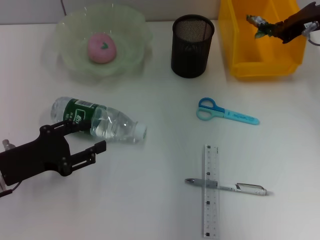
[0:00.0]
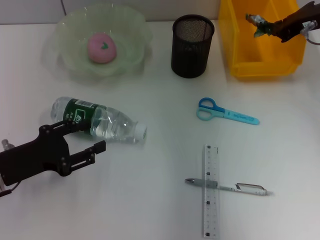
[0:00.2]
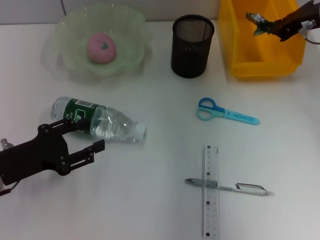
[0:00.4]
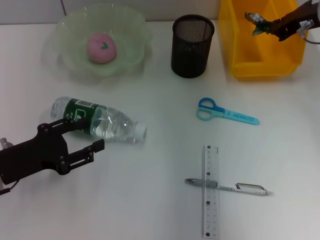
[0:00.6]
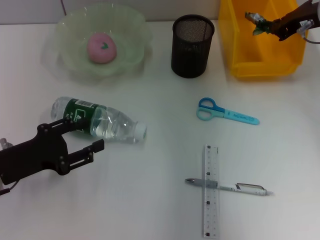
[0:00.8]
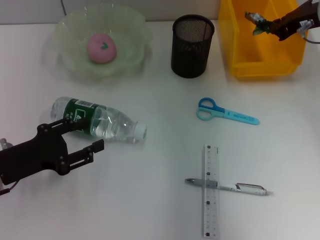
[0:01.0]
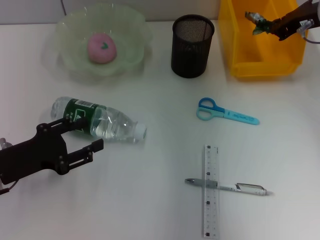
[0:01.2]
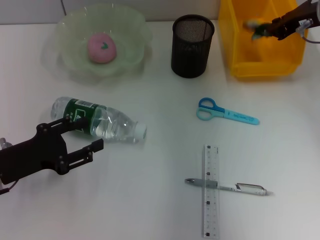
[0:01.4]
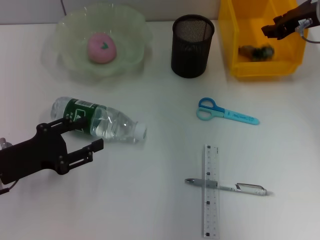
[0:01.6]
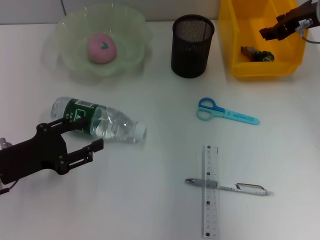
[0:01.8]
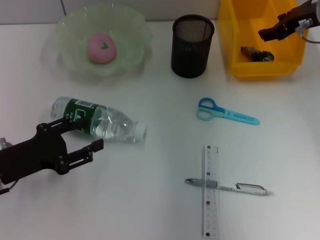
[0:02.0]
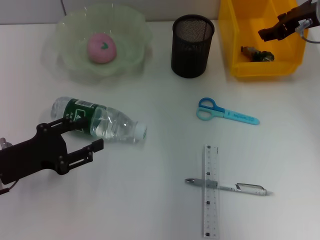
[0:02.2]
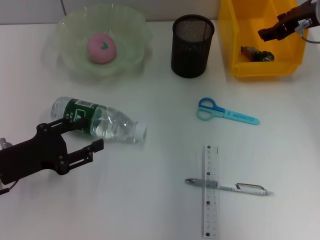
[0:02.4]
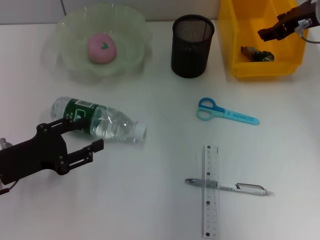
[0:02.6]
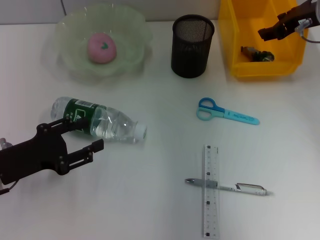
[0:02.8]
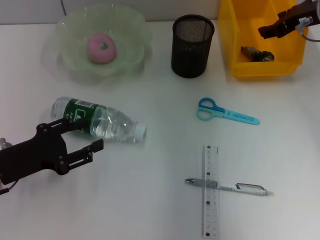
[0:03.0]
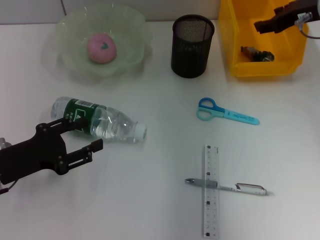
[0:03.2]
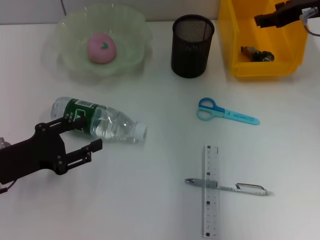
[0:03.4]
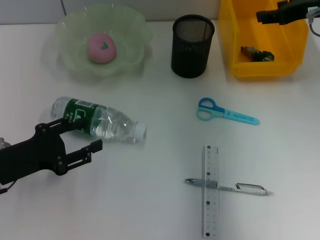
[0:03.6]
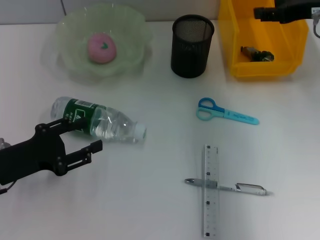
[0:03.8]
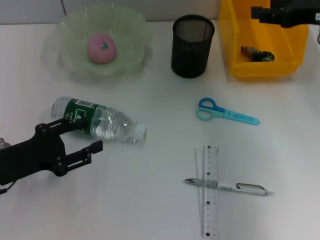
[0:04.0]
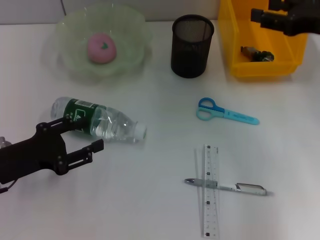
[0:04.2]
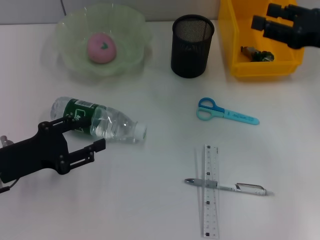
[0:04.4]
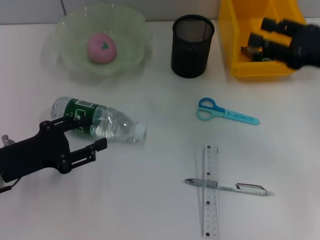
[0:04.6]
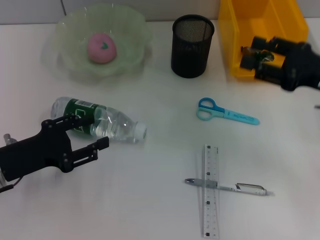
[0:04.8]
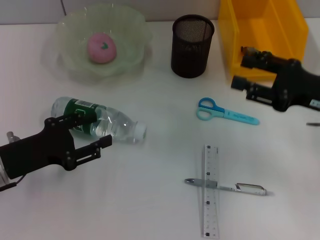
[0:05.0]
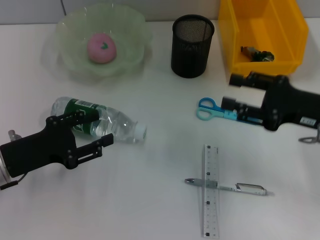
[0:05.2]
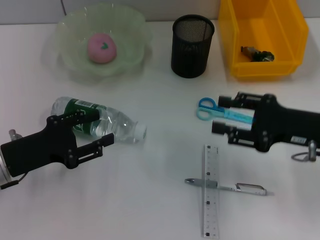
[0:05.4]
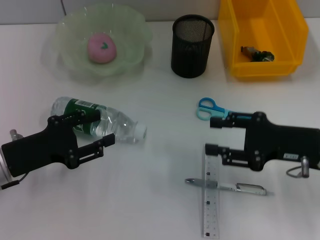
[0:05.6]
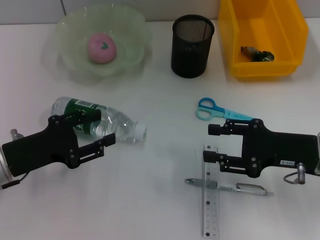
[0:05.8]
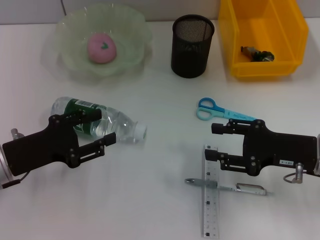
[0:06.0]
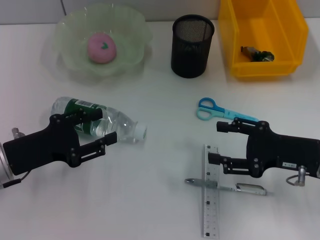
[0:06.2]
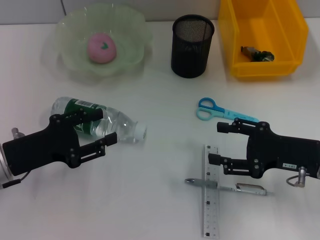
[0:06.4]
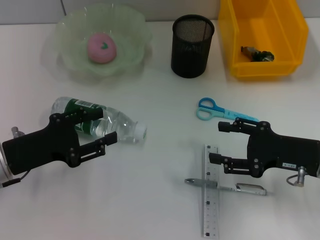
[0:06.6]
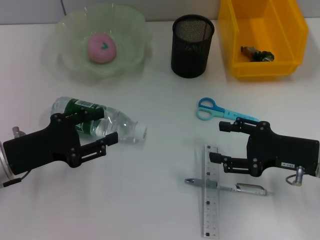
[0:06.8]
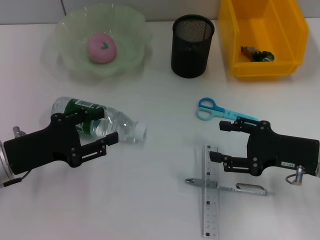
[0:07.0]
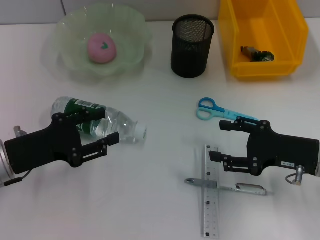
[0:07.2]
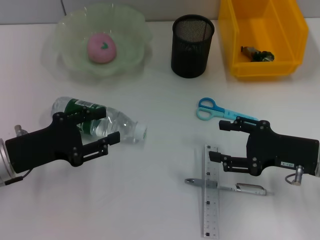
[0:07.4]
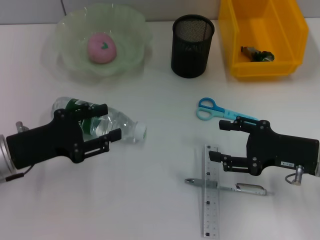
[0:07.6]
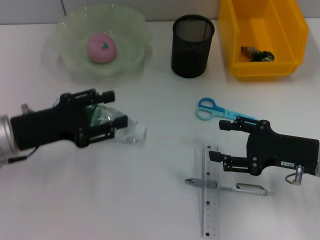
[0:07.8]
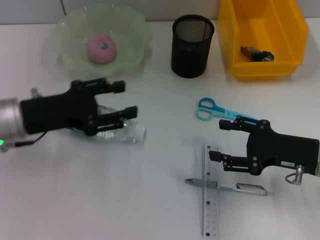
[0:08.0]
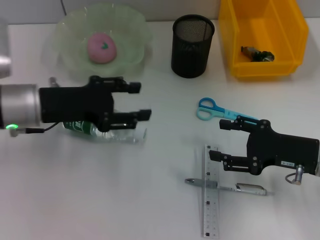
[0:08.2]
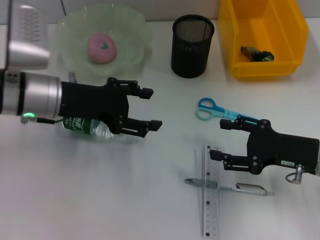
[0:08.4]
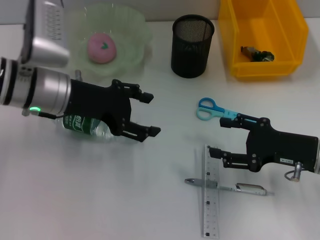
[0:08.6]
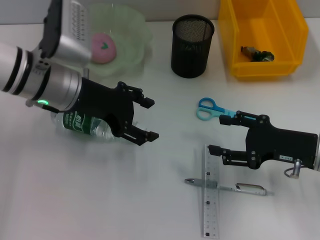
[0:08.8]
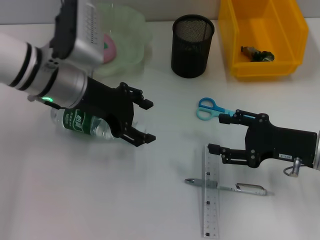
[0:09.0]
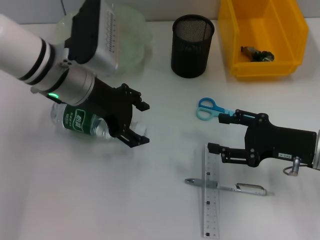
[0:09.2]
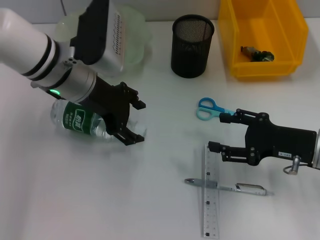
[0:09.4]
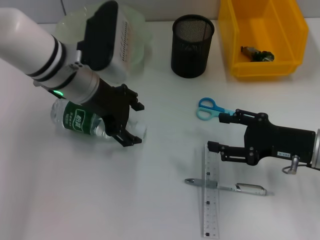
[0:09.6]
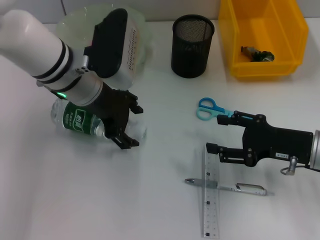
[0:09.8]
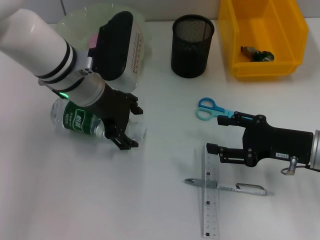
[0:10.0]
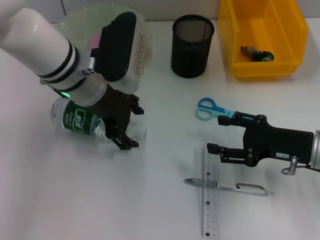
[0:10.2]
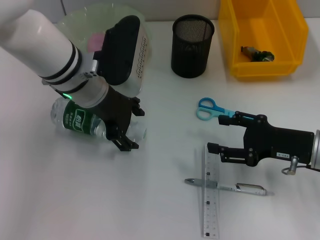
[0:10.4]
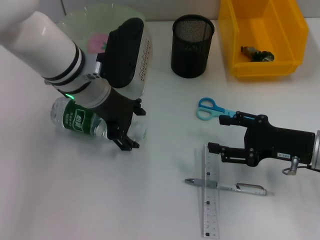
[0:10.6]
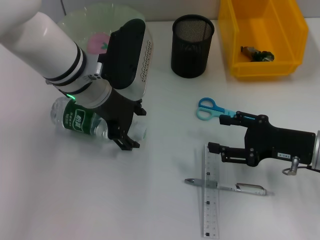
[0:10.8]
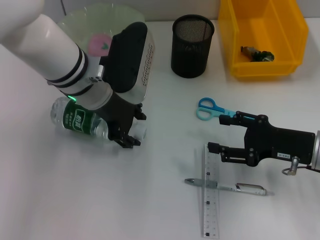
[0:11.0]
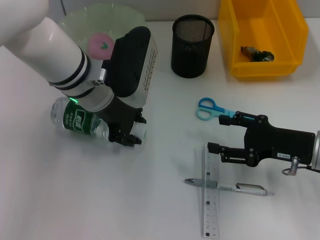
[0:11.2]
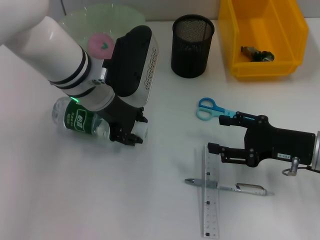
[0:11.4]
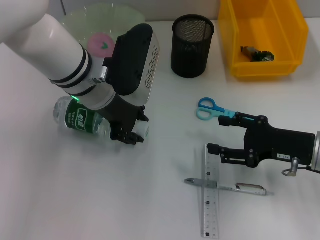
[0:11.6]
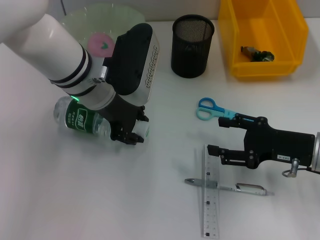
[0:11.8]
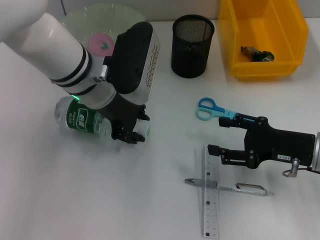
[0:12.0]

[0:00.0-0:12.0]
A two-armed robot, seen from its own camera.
Step, 0:01.8 to 0:11.2: Grab the water bottle with the left hand.
0:00.0 to 0:01.6: The two grippers keep their place.
0:01.6 to 0:03.0: The right gripper opens.
0:03.0 to 0:04.4: The right gripper heads backward, covering some 10 cm.
0:04.4 to 0:06.0: The right gripper goes about 15 cm downward and backward.
0:06.0 to 0:07.6: The grippers make only small movements.
0:07.6 to 0:09.0: The left gripper heads forward, to the right and upward, covering some 15 cm.
0:10.4 to 0:12.0: The left gripper closes.

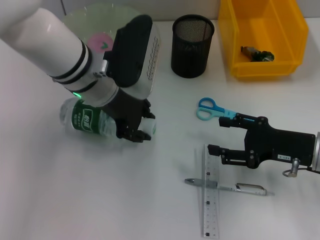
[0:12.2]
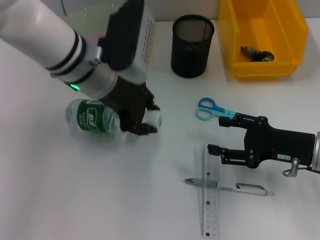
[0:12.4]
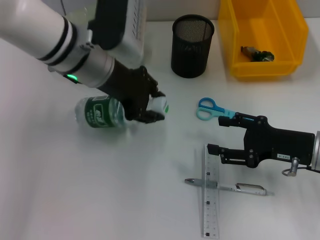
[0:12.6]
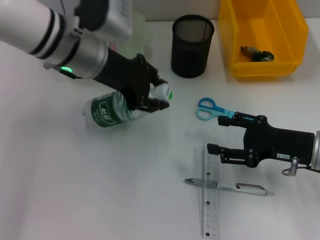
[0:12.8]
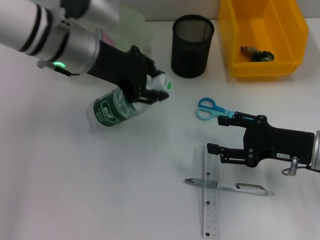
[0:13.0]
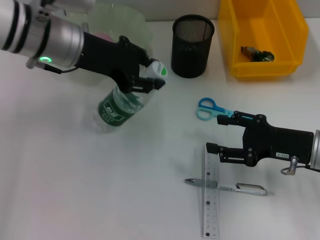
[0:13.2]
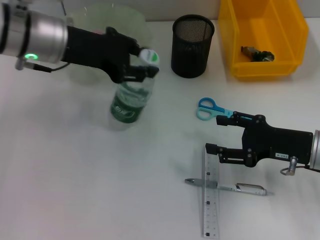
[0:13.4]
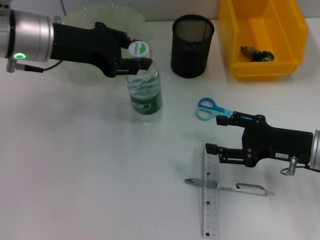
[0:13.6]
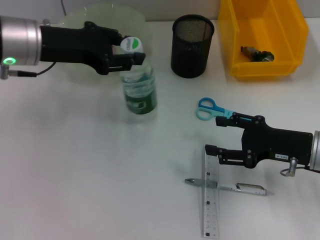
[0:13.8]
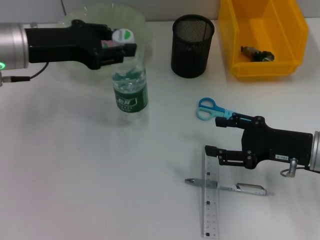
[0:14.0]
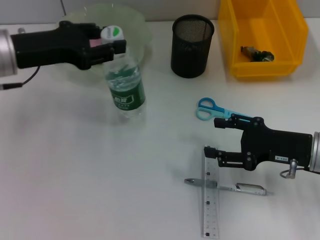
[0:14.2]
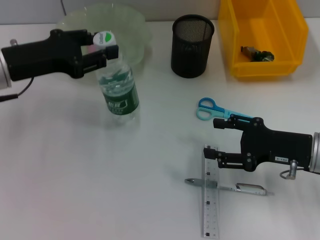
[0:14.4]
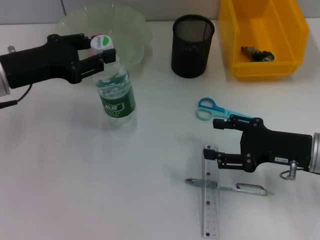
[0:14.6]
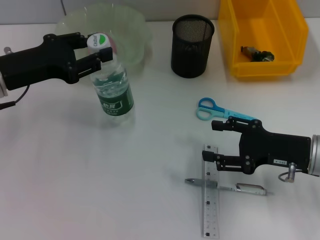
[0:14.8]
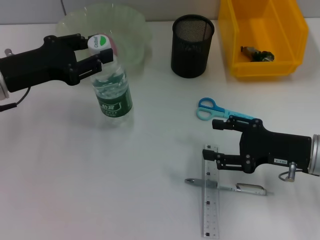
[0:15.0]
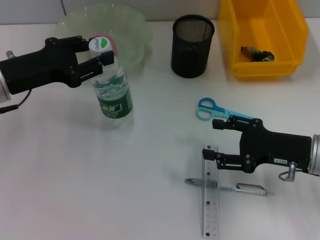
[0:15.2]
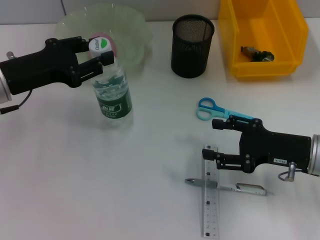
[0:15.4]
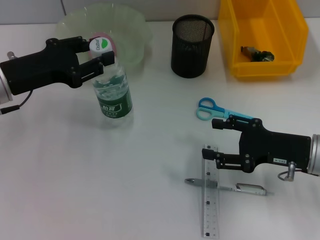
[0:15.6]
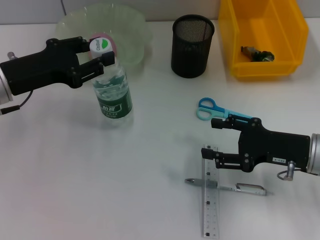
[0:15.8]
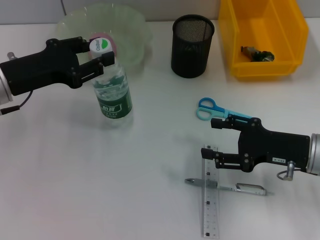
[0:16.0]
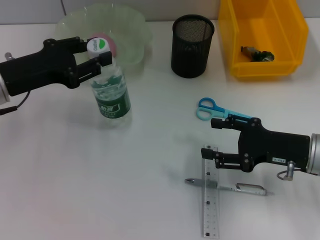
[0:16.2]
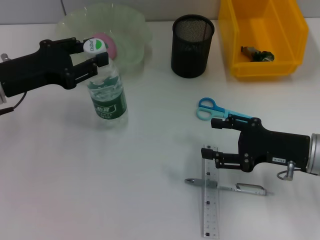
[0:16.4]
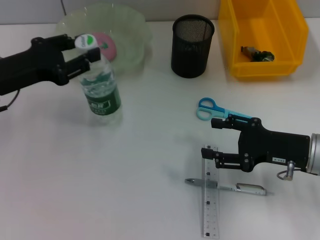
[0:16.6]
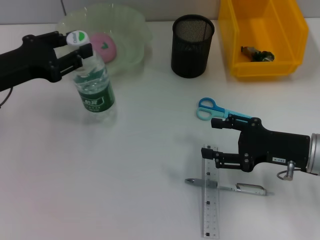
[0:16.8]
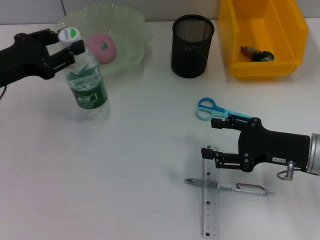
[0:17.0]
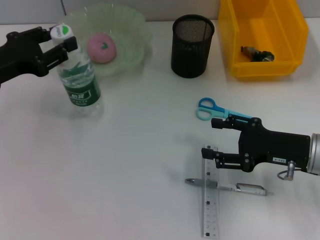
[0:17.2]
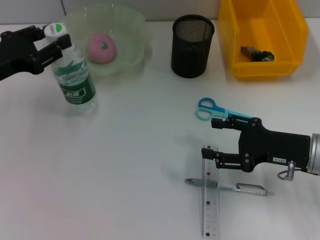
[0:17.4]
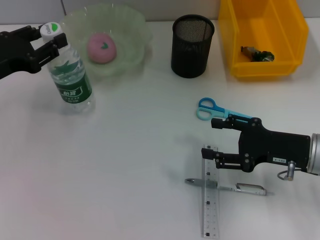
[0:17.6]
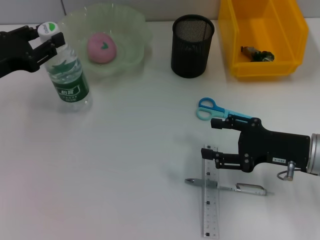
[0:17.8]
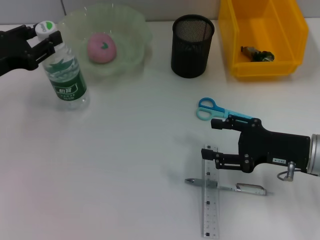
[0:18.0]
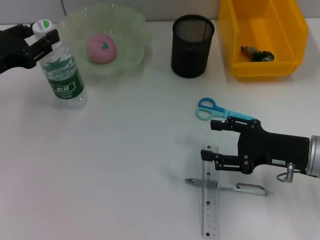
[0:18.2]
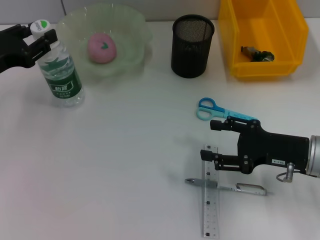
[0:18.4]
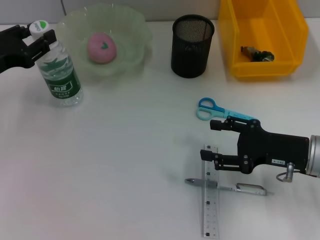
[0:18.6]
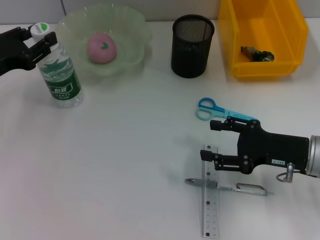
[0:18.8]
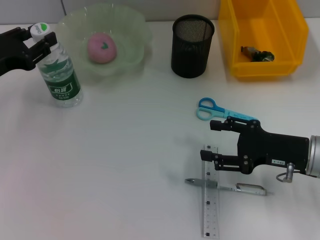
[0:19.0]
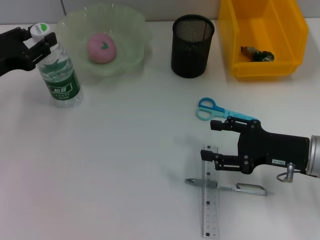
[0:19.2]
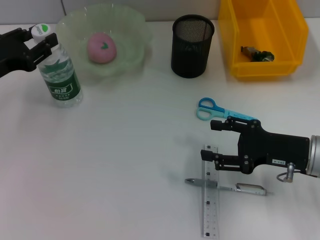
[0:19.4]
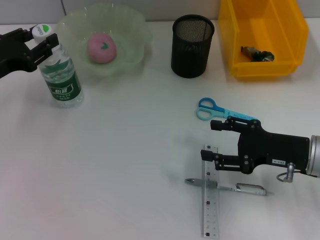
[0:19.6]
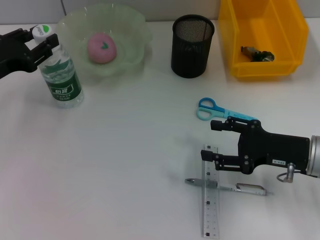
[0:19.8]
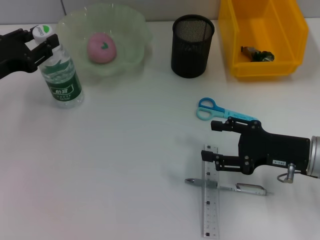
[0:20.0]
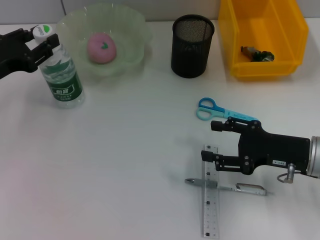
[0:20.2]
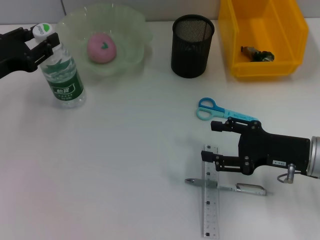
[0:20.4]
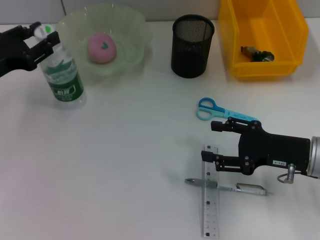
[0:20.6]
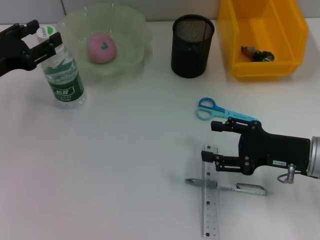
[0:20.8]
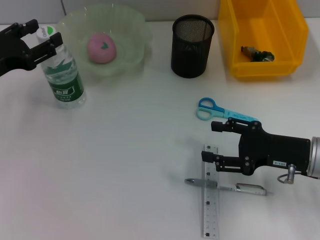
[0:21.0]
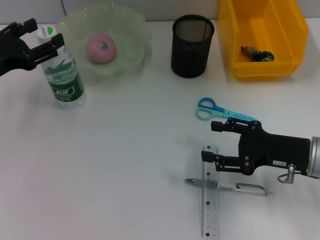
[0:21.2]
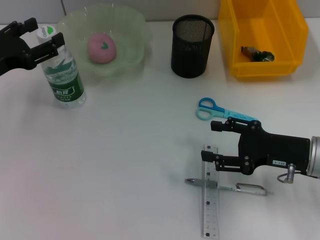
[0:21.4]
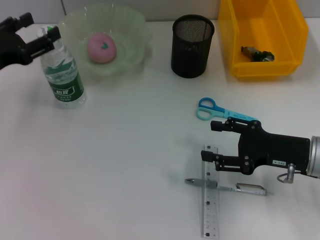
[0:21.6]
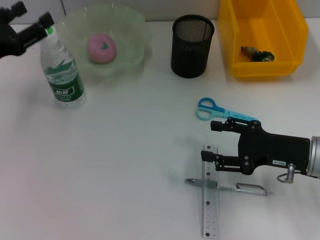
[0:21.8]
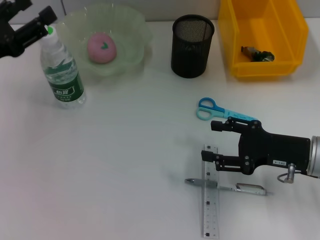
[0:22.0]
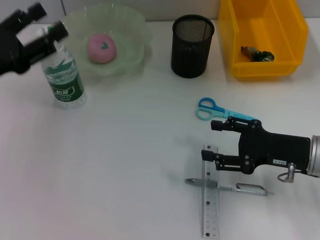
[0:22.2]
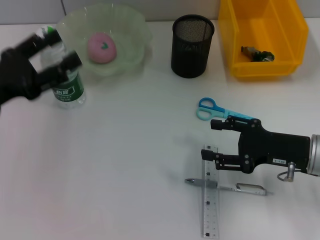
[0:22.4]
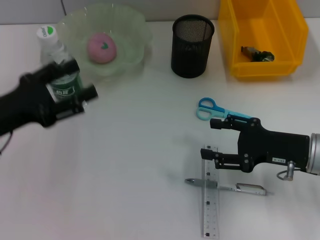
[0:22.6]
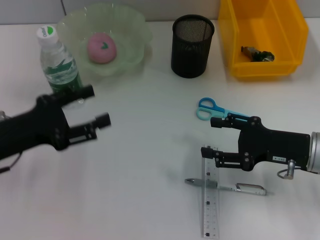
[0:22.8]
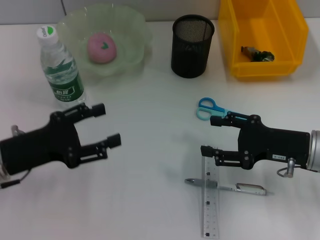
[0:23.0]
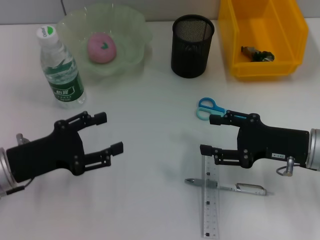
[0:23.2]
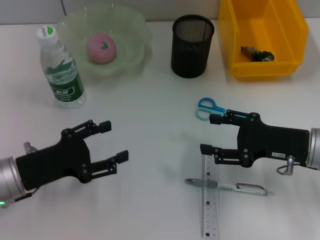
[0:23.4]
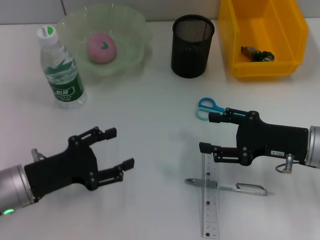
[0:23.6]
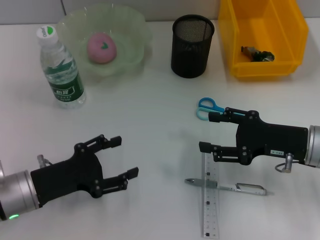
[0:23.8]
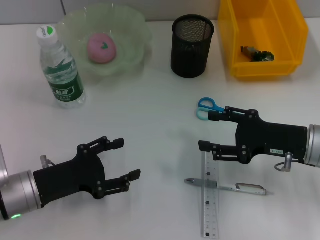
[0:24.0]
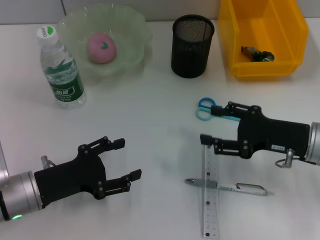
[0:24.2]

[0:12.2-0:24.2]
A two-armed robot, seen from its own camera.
Step, 0:12.2 to 0:21.0: Place the water bottle on the table with the left hand.
0:12.2 to 0:13.8: The left gripper goes about 10 cm to the left.
0:13.8 to 0:15.2: The left gripper travels downward by some 5 cm.
0:15.2 to 0:18.2: The grippers make only small movements.
0:18.2 to 0:19.8: Neither gripper changes place.
0:19.8 to 0:21.2: The left gripper opens up.
0:21.2 to 0:22.6: The left gripper is displaced backward by some 5 cm.
0:22.6 to 0:24.2: The left gripper moves downward, about 10 cm.
